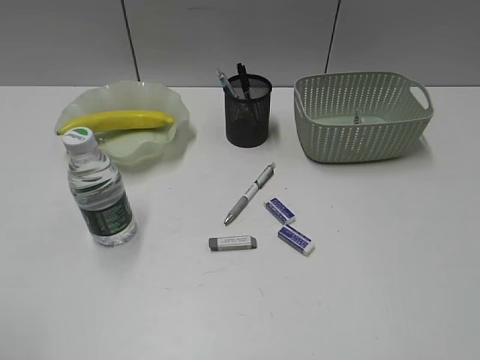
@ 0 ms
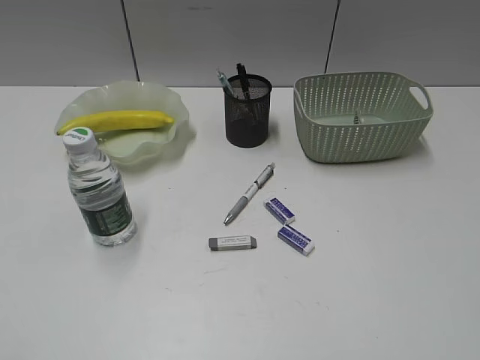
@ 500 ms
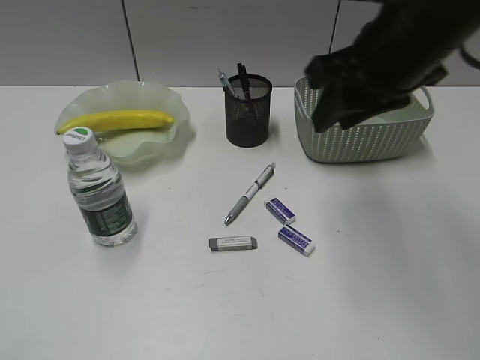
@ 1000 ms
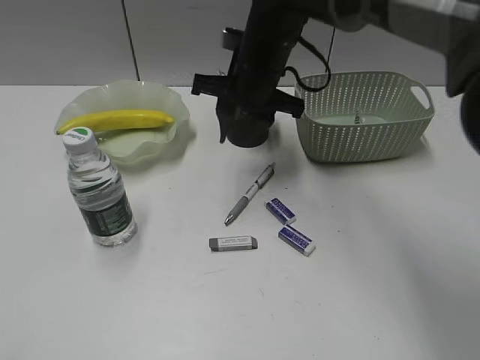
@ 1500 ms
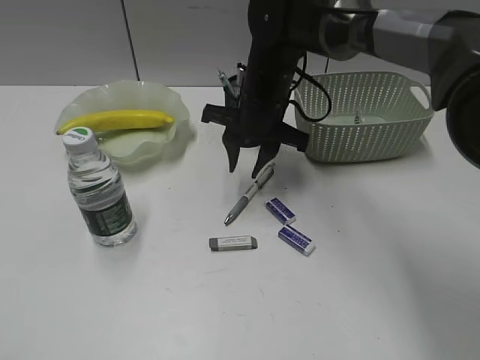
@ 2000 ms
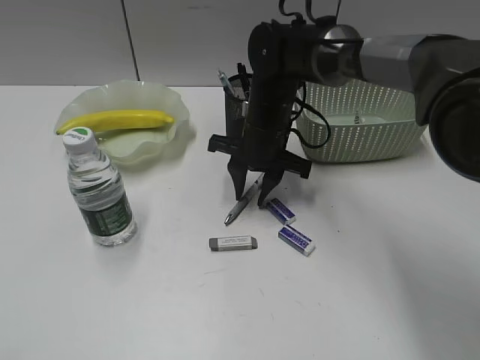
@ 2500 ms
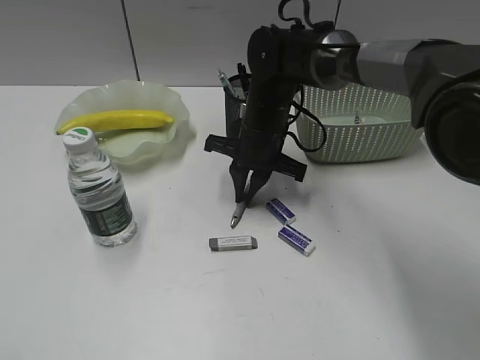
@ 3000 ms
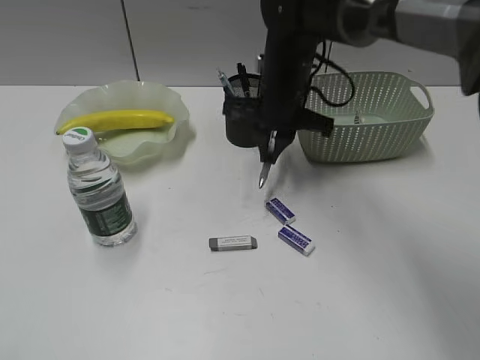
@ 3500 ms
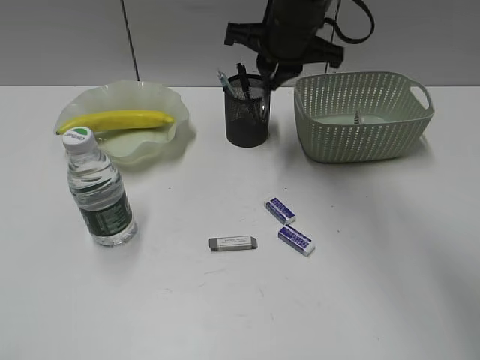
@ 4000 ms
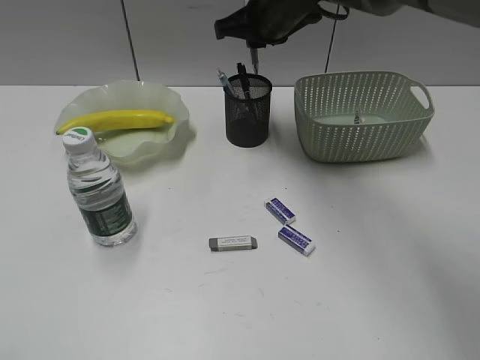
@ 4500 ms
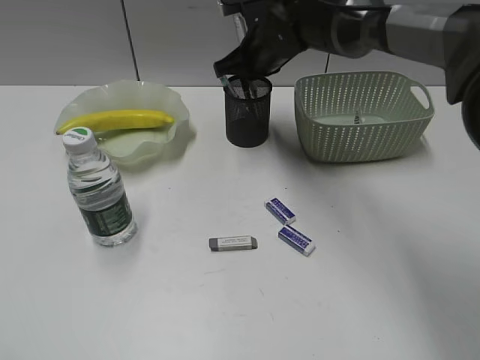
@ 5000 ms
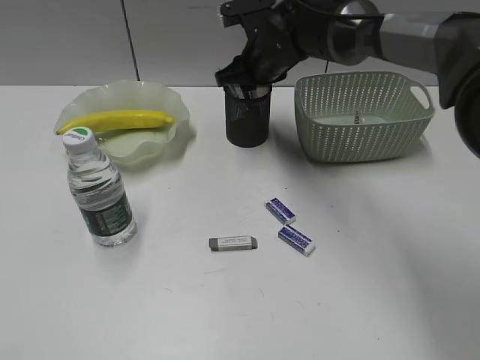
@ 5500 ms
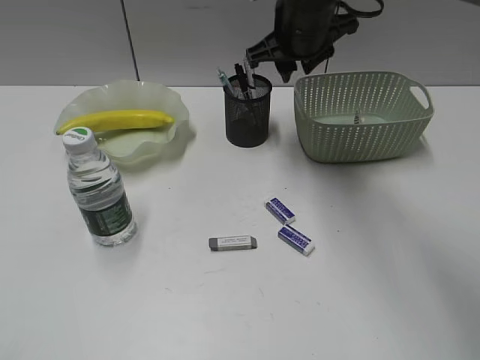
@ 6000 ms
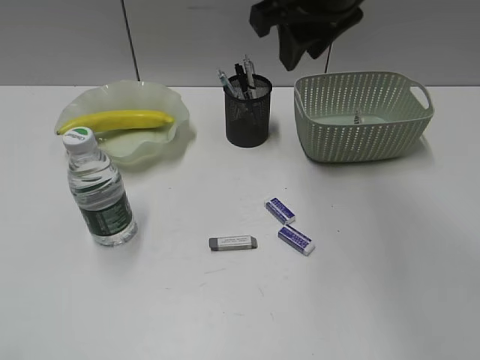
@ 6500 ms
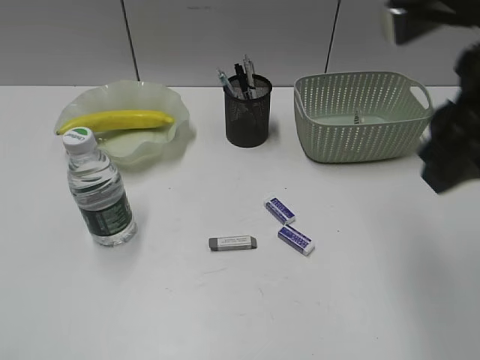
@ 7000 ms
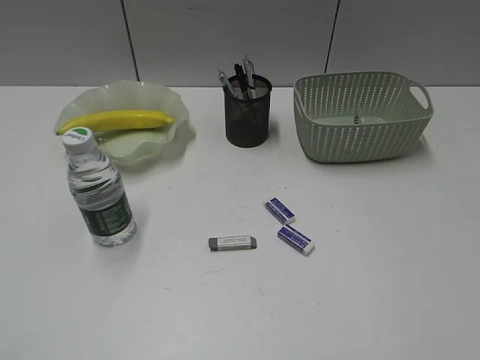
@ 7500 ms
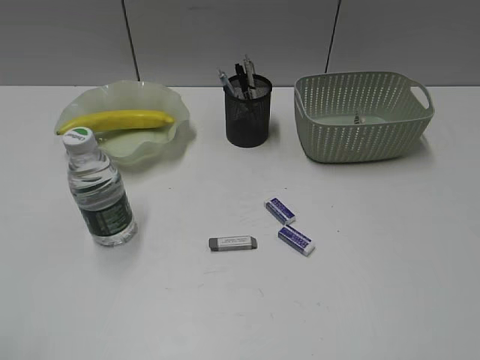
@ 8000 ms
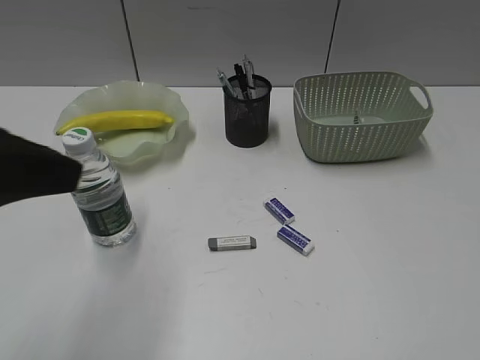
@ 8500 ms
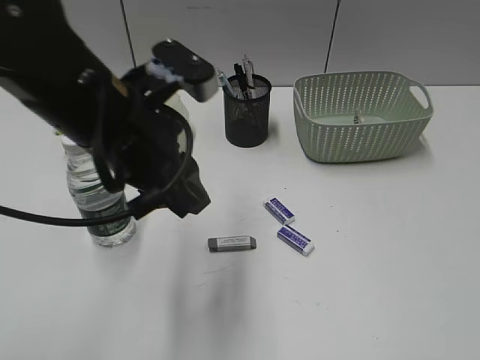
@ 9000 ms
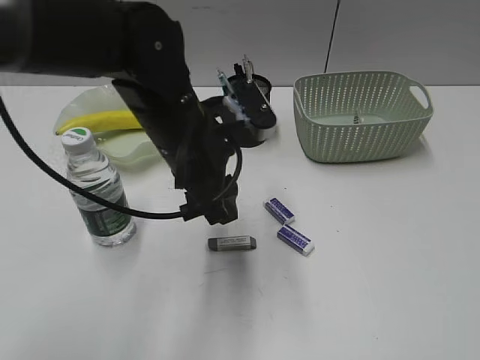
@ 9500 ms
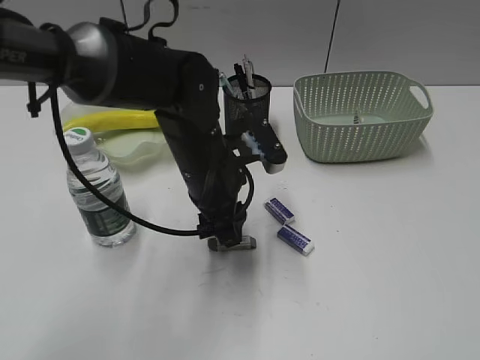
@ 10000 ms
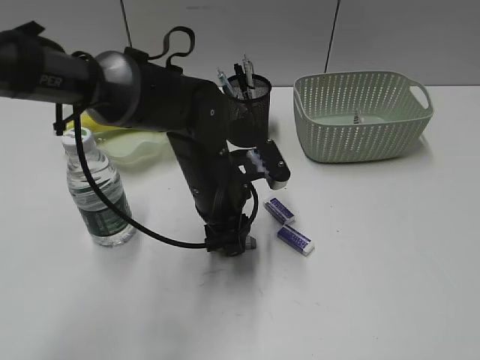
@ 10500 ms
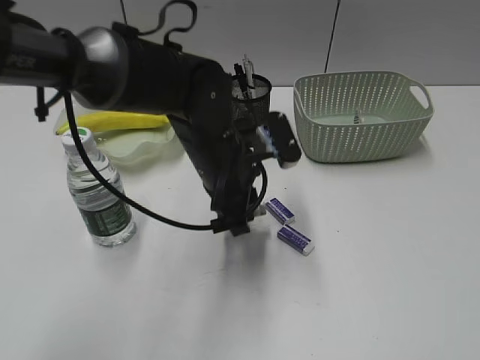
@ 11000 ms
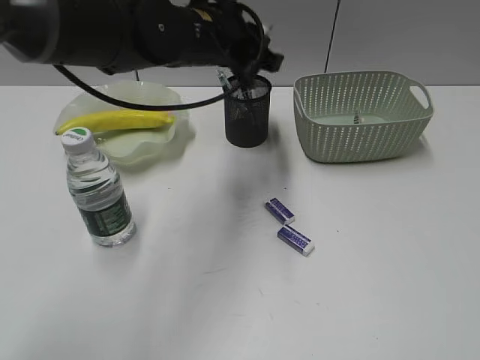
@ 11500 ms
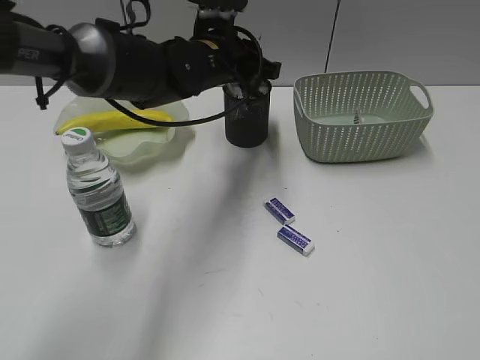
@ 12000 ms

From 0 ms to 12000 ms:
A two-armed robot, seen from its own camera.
Step, from 0 ms to 3000 ms: Grasp the gray pen with right gripper.
Step, from 3500 ms to 5500 ms: Place the gray pen in pen holder with right gripper.
Step, from 6000 ms to 10500 ms: Grasp the eraser with left gripper.
From 0 ms to 2000 ms: The right gripper goes approximately 50 cm forward and to the left; the left gripper is displaced downward by roughly 5 cm.
From 2000 ms to 4000 ms: The right gripper is displaced upward by about 10 cm, and closes.
From 4000 ms to 6000 ms: The right gripper moves some 5 cm downward and comes back, and opens up.
From 6000 ms to 8000 ms: The right gripper shifts roughly 50 cm backward and to the right.
From 8000 ms to 10000 ms: The left gripper moves forward, to the right and downward, some 50 cm.
From 10000 ms to 12000 ms: The left gripper is displaced forward by roughly 10 cm, and closes its fingers.

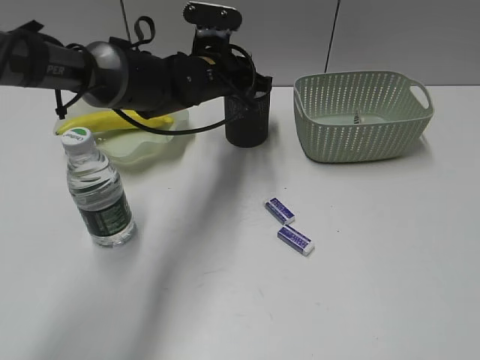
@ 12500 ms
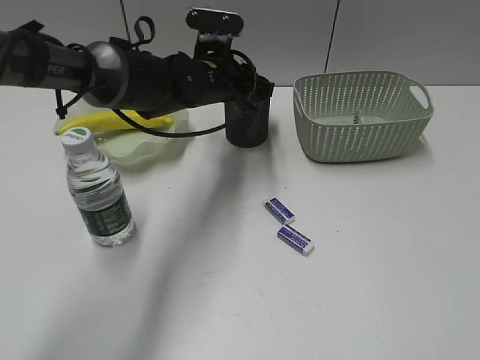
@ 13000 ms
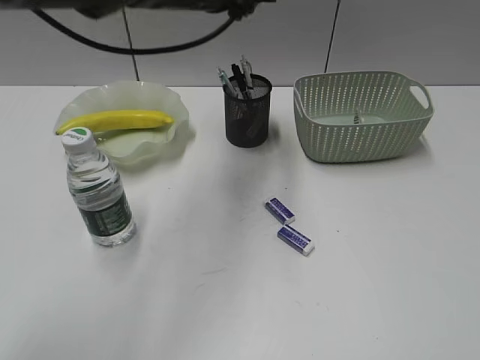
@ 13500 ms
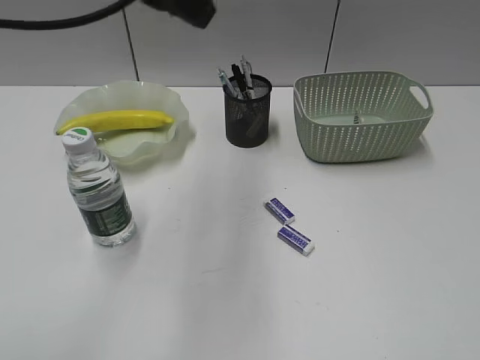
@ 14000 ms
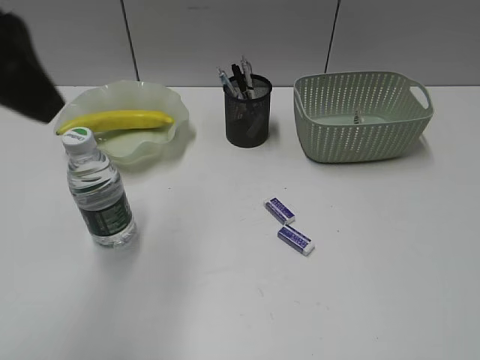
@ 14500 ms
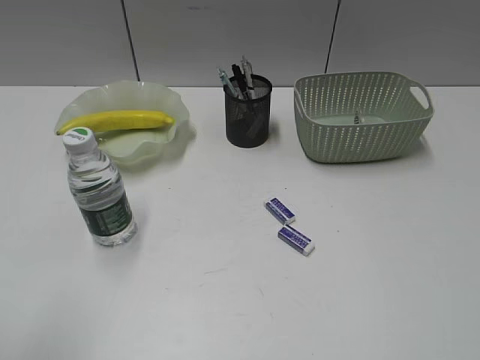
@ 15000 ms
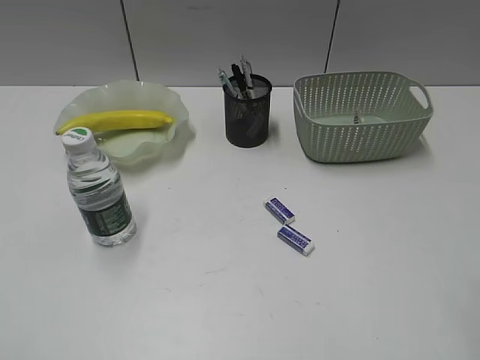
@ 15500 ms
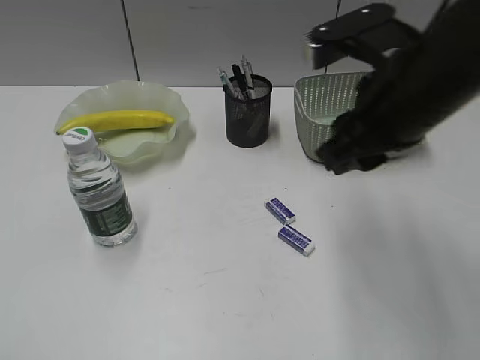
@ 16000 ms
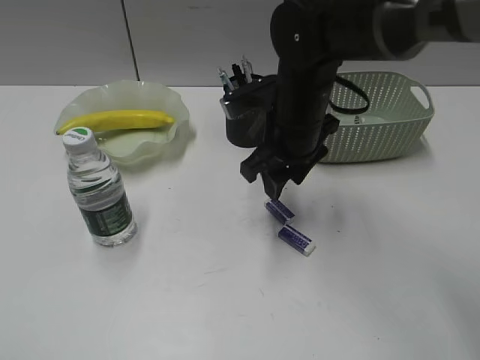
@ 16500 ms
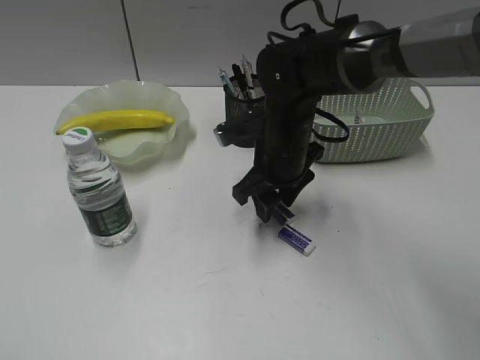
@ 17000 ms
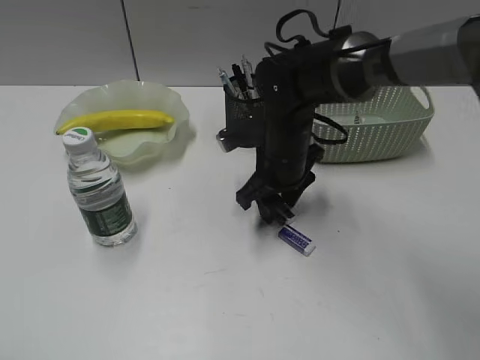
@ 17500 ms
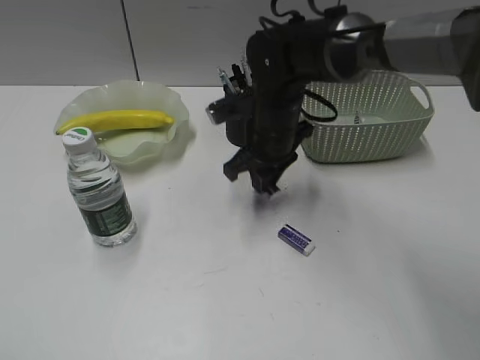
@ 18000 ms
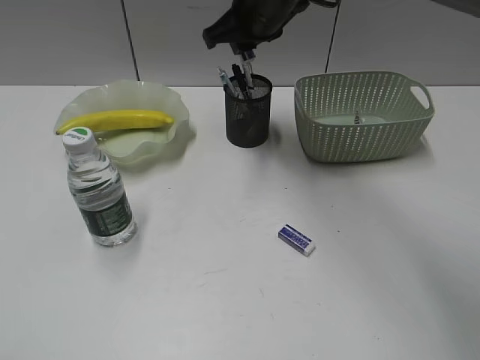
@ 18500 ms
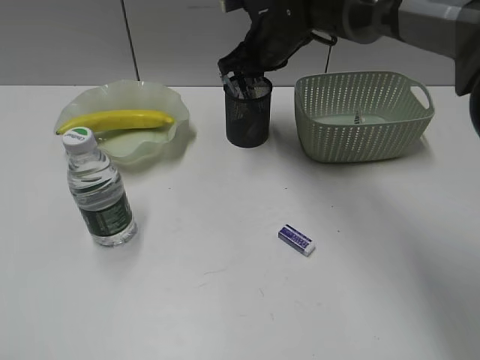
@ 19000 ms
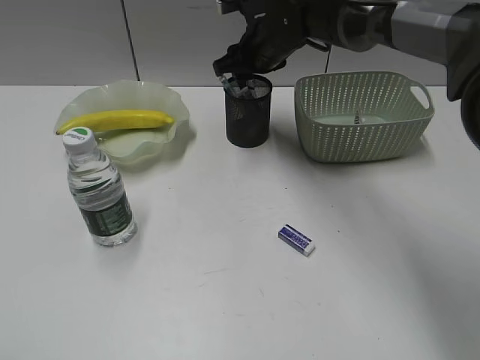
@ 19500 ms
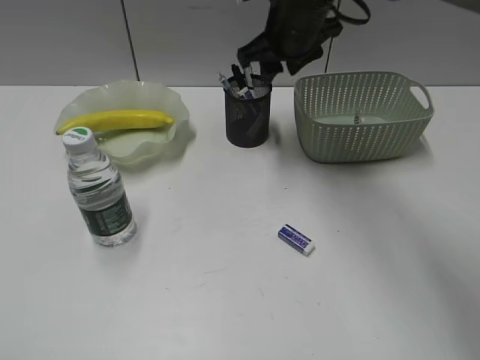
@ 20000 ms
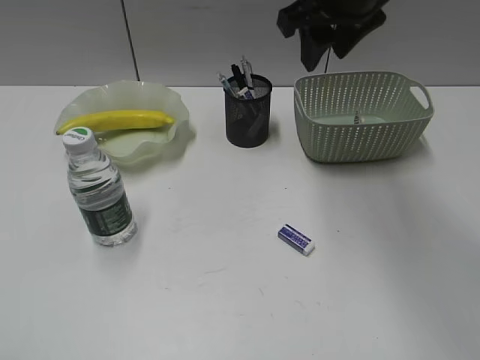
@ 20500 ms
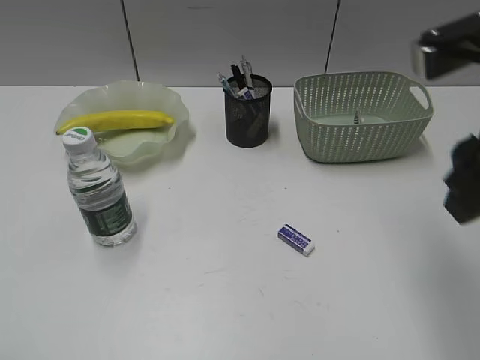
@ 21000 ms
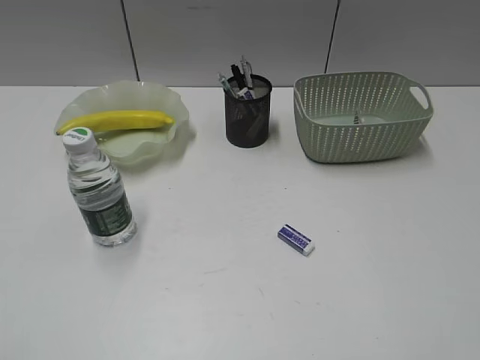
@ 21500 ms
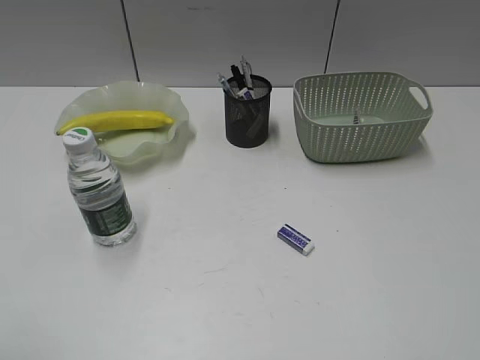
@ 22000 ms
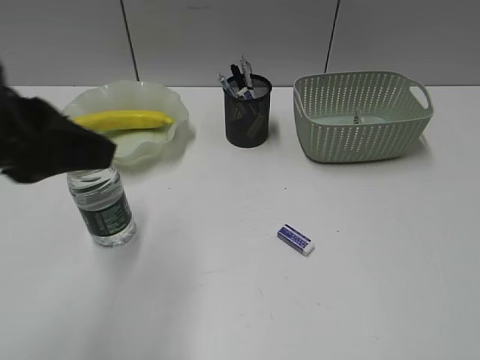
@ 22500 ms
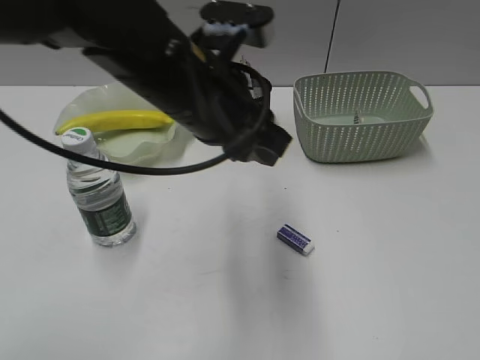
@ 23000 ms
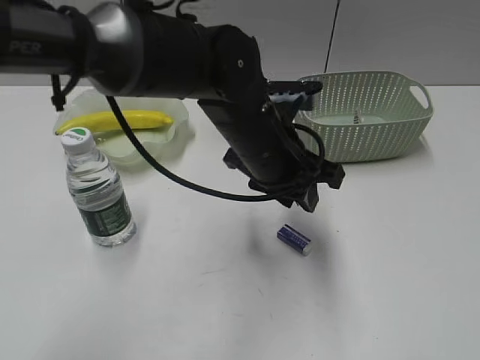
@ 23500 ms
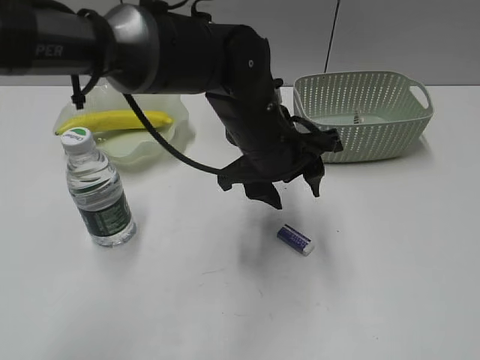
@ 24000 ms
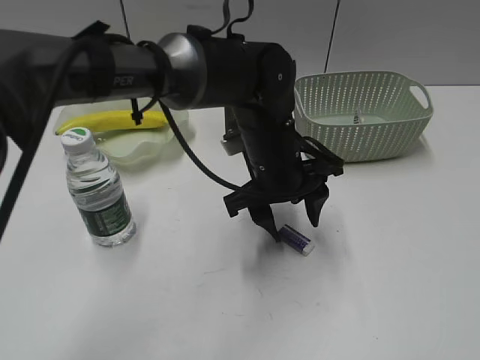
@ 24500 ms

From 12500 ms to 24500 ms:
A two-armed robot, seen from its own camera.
Step, from 13500 ms to 17500 ms: Grasp the eraser with right gripper.
Step, from 18000 ms to 19500 ms: Place the eraser in pen holder with right gripper.
From 12500 ms to 14500 ms: The left gripper heads backward, upward and to the left, covering approximately 35 cm, and opens.
From 14500 ms to 16500 ms: The left gripper shifts approximately 30 cm backward, to the left and downward, while the right gripper shifts some 40 cm forward and to the left.
From 16500 ms to 18500 ms: The right gripper heads forward and upward, covering about 10 cm, and closes up.
From 18500 ms to 20500 ms: The right gripper shifts roughly 10 cm to the right and upward, and opens up.
From 20500 ms to 22500 ms: The left gripper travels forward and to the right by approximately 20 cm. Meanwhile the right gripper moves backward and to the right, about 40 cm.
From 22500 ms to 24500 ms: The left gripper is displaced to the right, forward and downward by approximately 35 cm, and opens up.

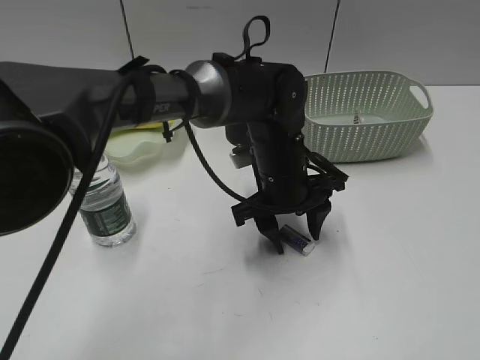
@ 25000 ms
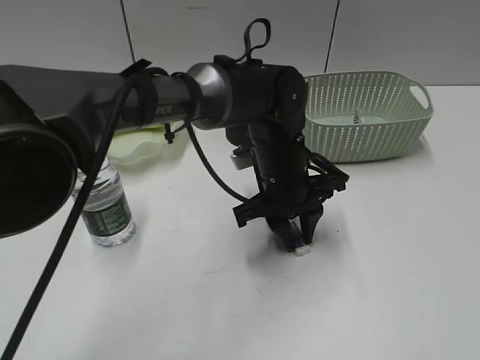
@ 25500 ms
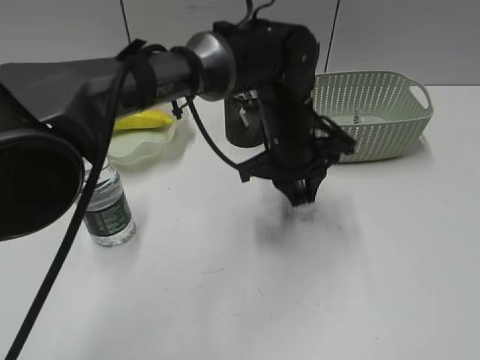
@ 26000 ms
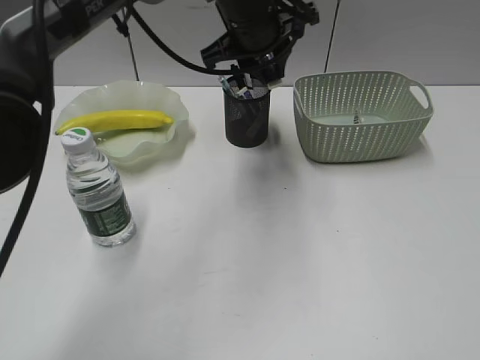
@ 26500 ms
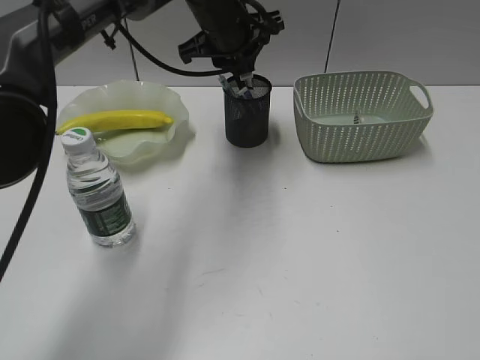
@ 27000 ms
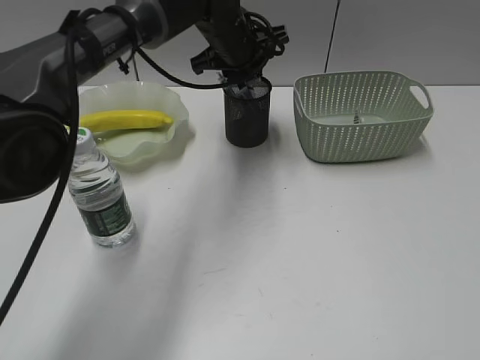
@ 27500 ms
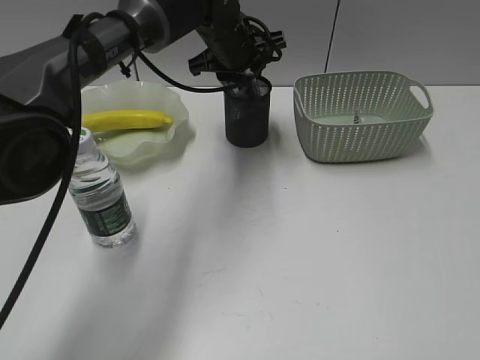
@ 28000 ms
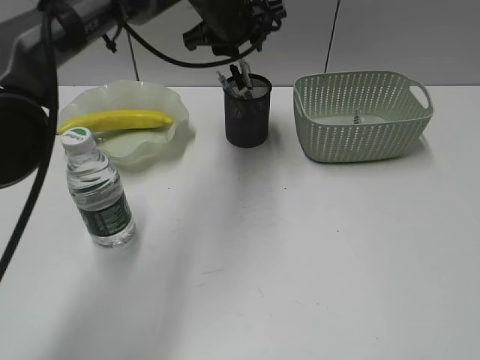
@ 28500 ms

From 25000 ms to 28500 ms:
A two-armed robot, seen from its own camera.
Step, from 26000 ms to 28000 ms: Place the eraser in pen holder with left gripper.
From 25000 ms to 27000 ms: The left gripper heads upward, forward and to the left, covering roughly 20 cm, and closes.
From 27000 ms to 28500 ms: The grippers move only a little.
